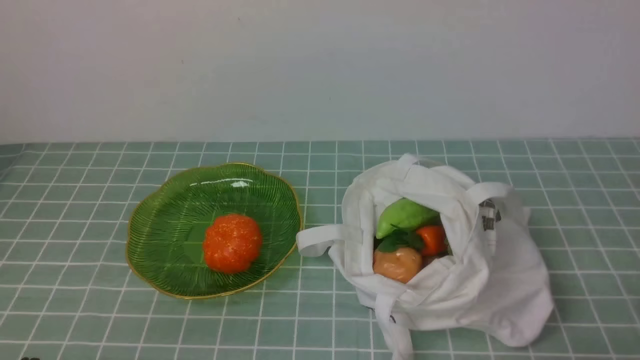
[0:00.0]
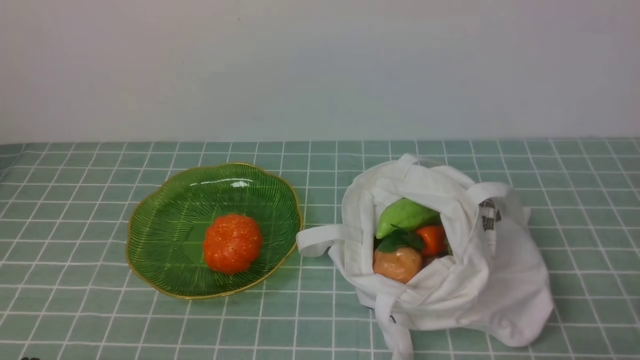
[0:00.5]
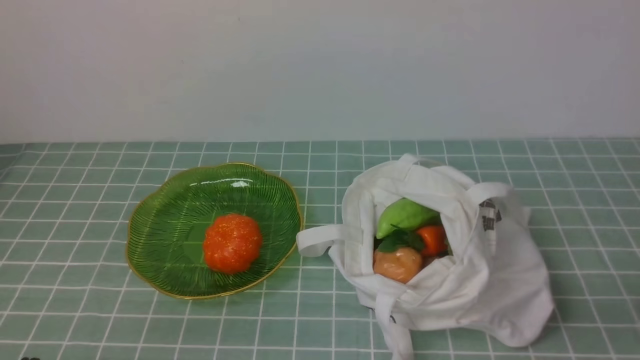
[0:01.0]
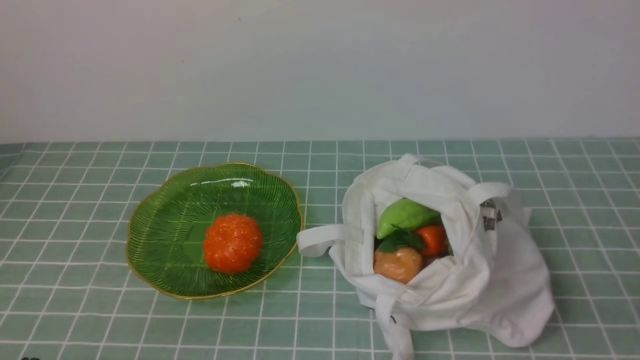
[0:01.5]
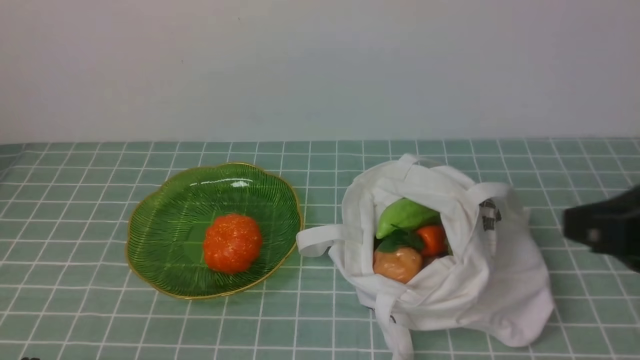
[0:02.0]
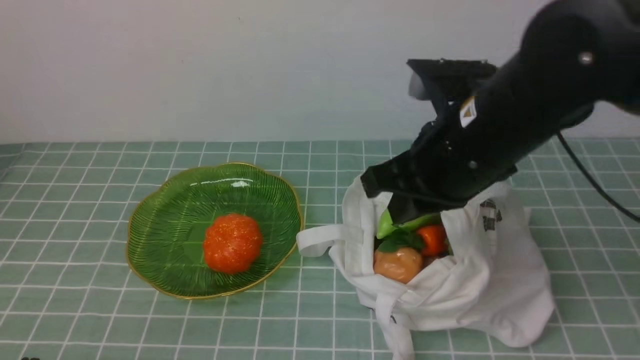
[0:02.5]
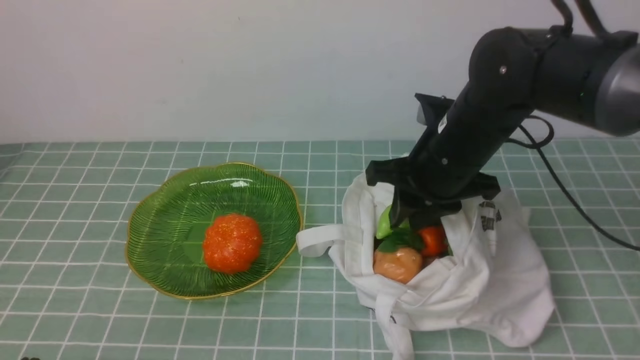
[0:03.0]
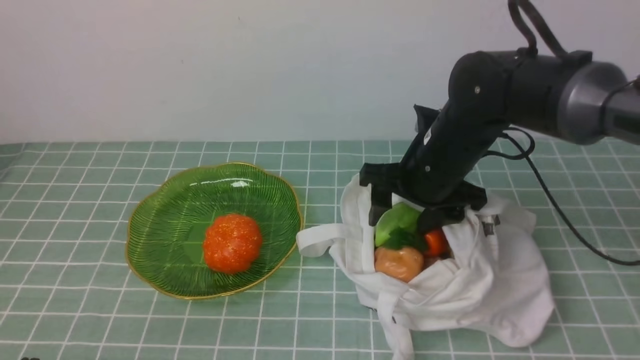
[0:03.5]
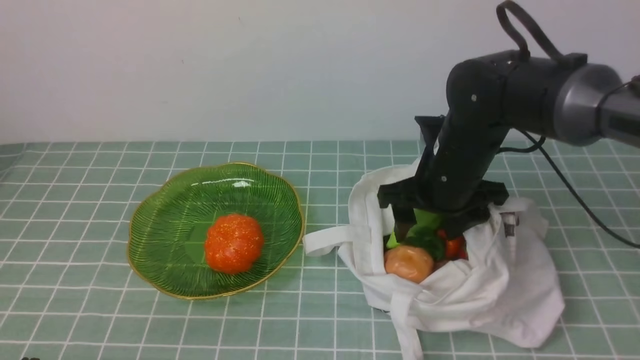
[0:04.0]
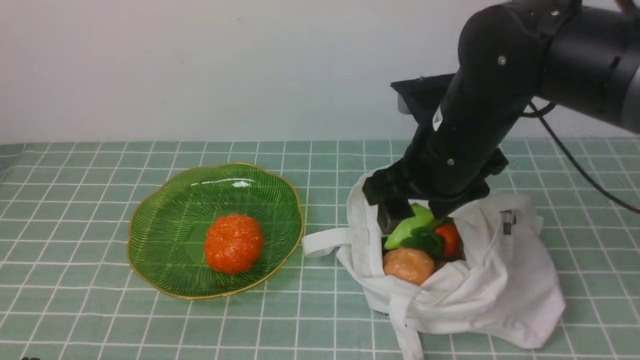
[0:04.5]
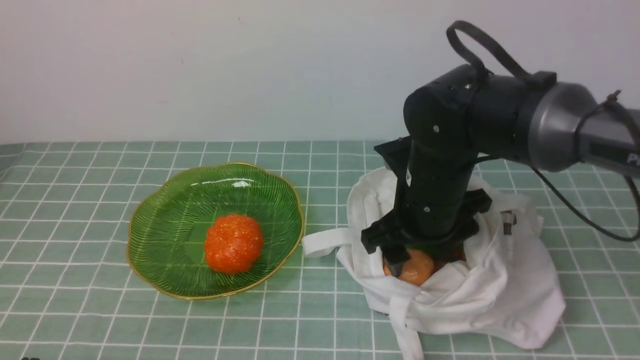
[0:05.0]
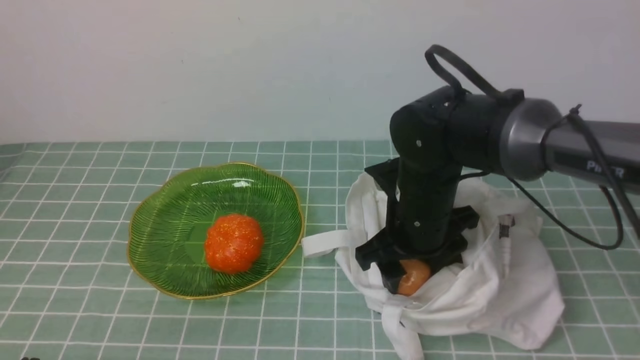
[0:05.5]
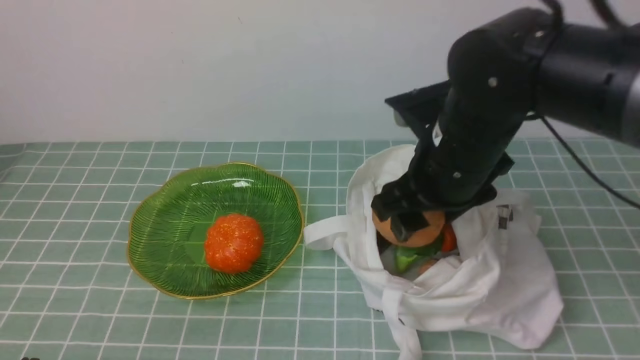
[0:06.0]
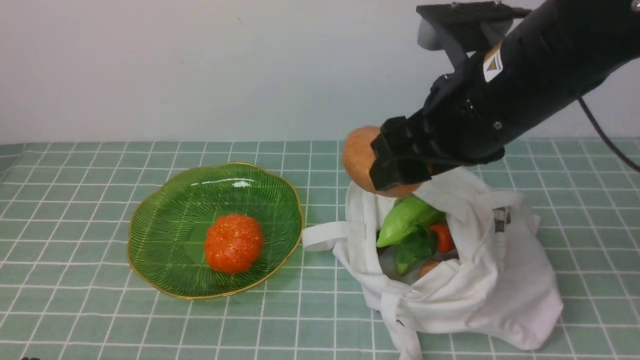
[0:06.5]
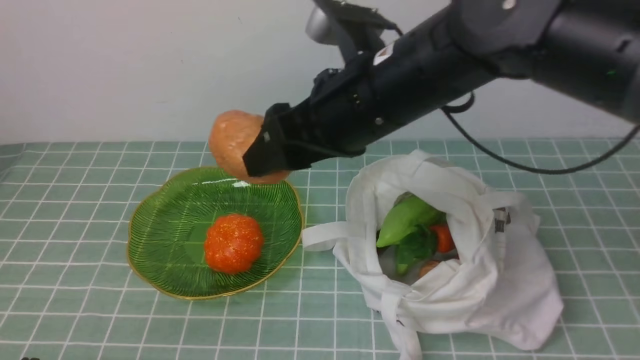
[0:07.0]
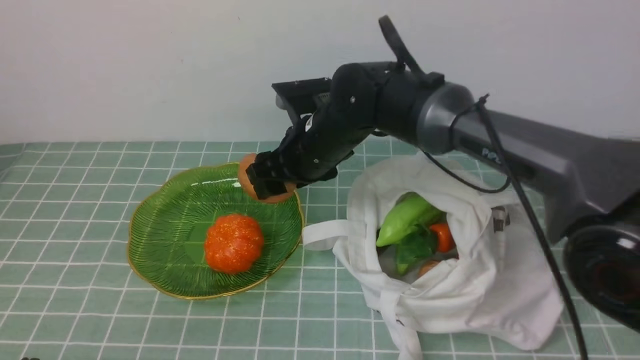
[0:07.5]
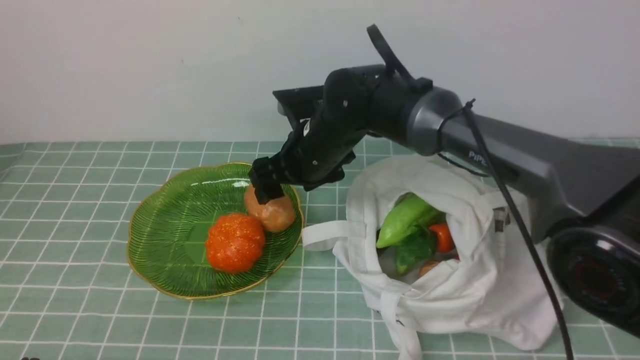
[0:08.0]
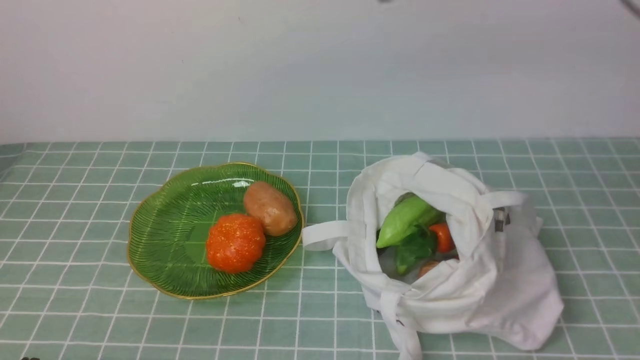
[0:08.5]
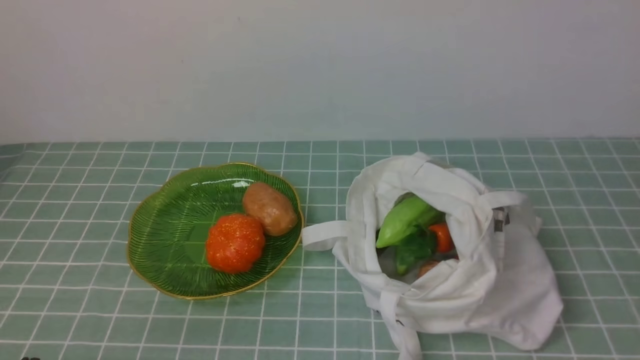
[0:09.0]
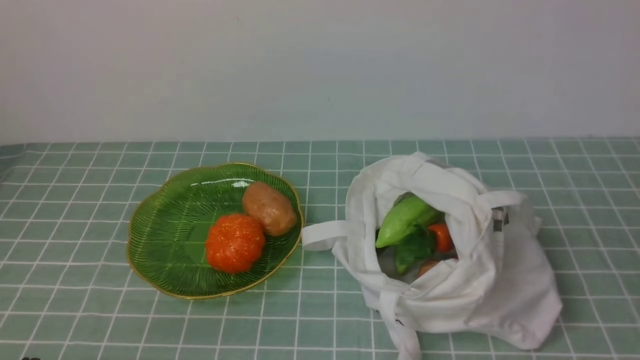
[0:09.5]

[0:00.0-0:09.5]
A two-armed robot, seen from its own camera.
Task of the whole recording: take vegetables from cloth bag on blue coffee tablecloth place on plate.
Step, 0:00.0 to 0:05.5: Grasp the potato with right gripper.
Step, 0:06.0 to 0:08.0: Place the potato on the plate with right gripper.
0:00.0 to 0:02.0: The right gripper moves upward, forward and to the left, about 25 cm.
0:02.0 to 0:04.0: The right gripper goes roughly 25 cm forward, downward and to the left, and opens up.
0:04.0 to 0:05.5: The right gripper moves roughly 5 cm.
0:05.5 to 0:07.5: The right gripper heads to the left and forward, covering some 15 cm, and moves about 15 cm upward and comes back.
0:07.5 to 0:09.5: The right gripper goes approximately 50 cm backward and to the right, and closes.

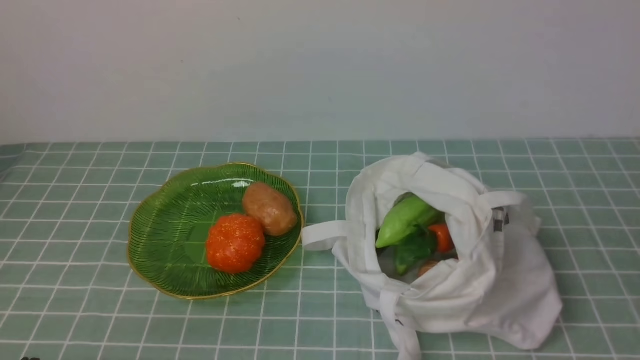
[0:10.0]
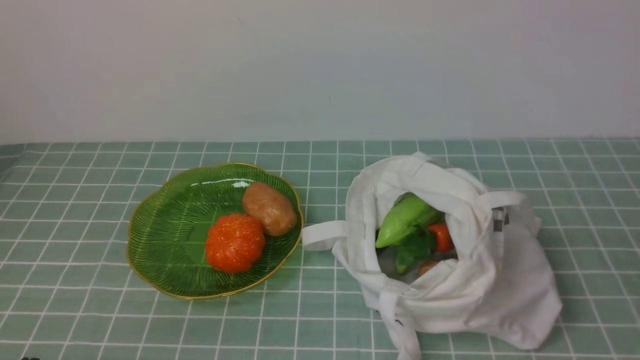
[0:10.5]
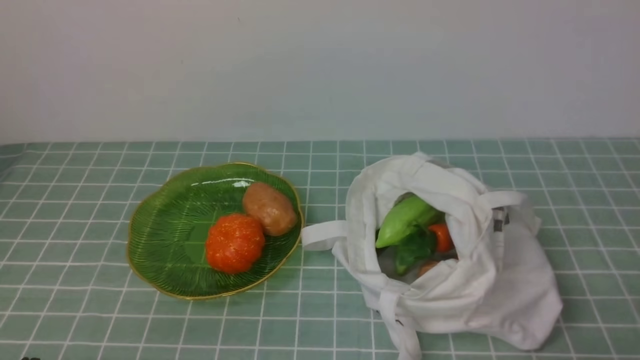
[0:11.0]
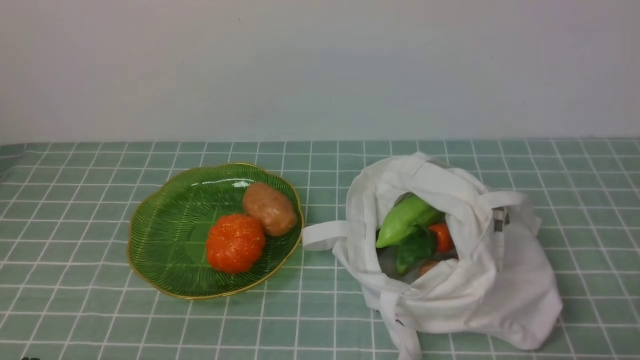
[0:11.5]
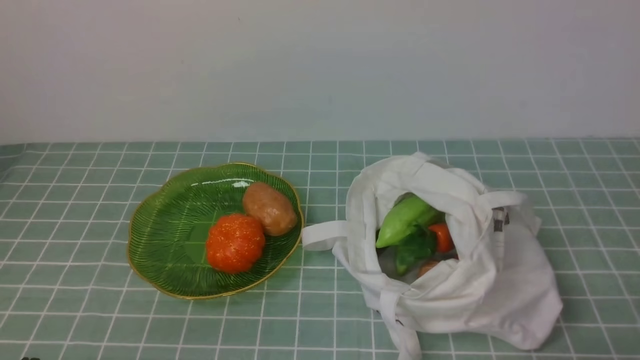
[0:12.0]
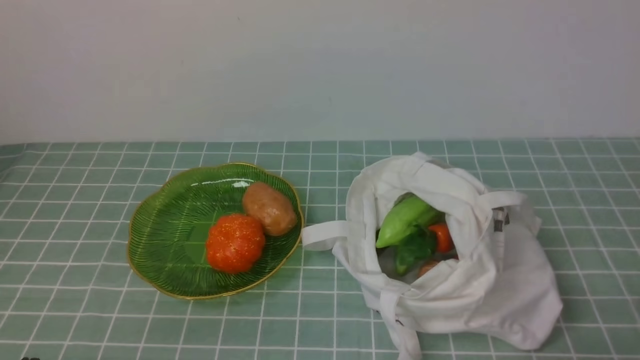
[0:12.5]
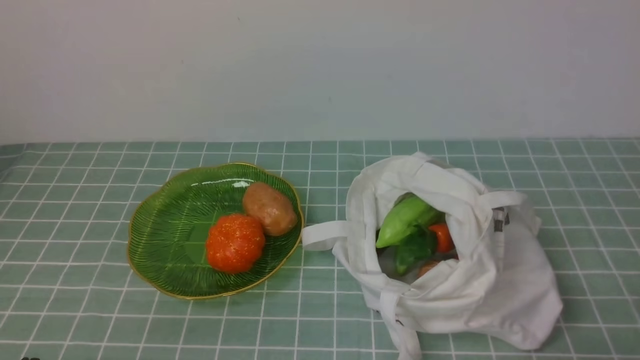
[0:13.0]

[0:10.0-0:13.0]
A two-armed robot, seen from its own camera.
Task of the whole recording: take vegetables from cloth bag on blue coffee tablecloth place on plate.
0:11.5 to 0:13.0: Both grippers stay about where they are.
